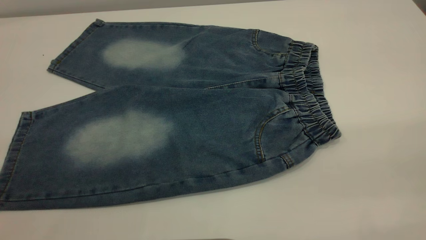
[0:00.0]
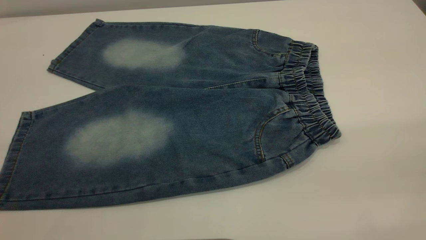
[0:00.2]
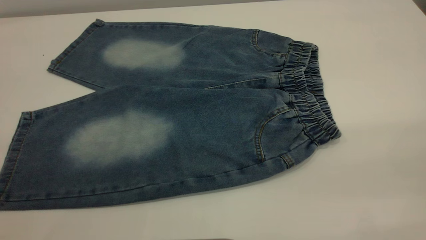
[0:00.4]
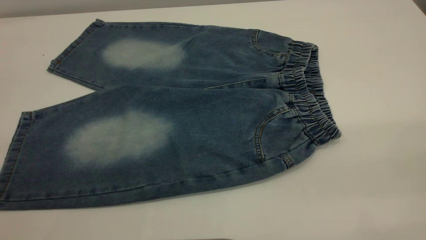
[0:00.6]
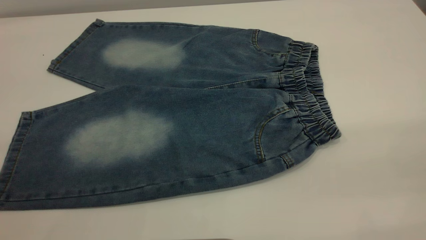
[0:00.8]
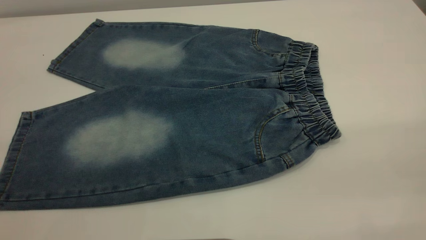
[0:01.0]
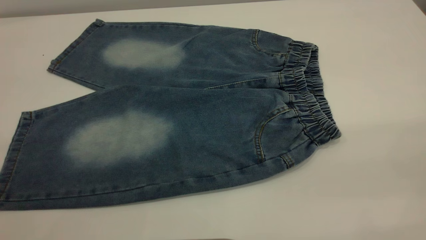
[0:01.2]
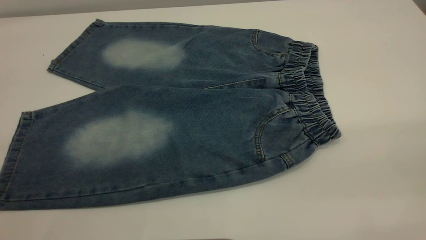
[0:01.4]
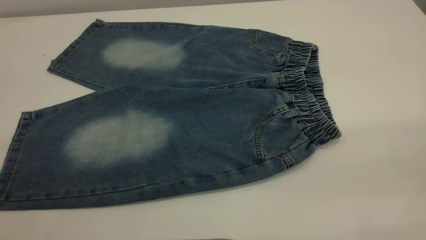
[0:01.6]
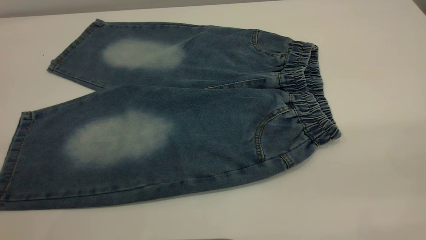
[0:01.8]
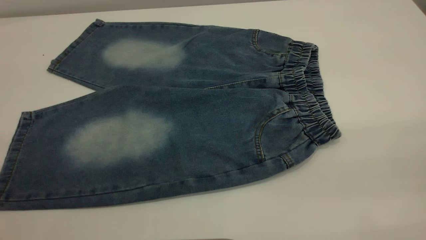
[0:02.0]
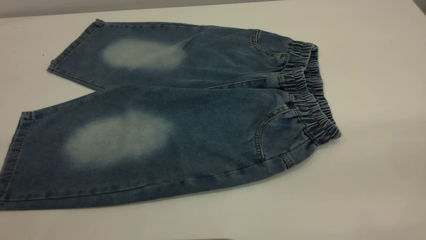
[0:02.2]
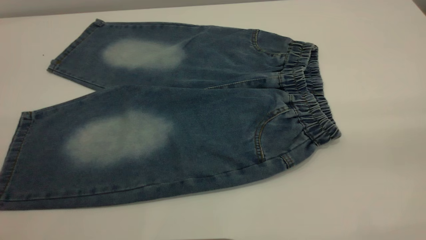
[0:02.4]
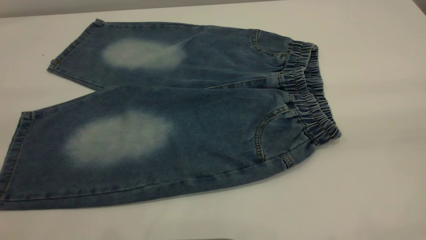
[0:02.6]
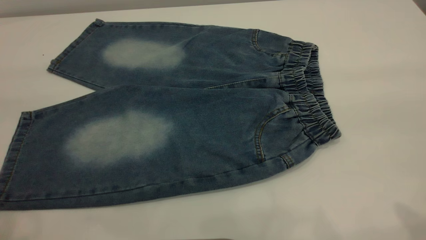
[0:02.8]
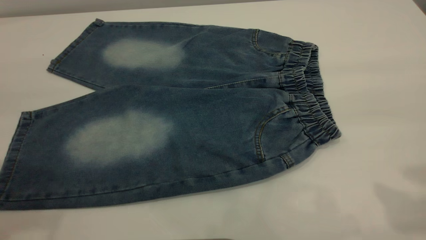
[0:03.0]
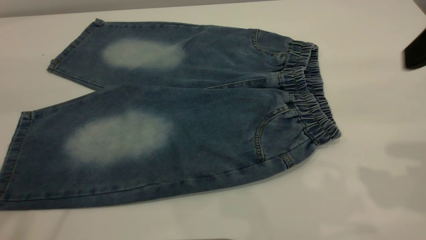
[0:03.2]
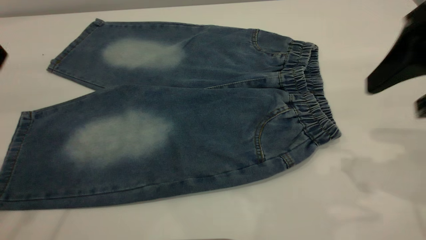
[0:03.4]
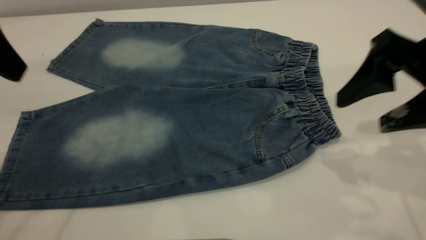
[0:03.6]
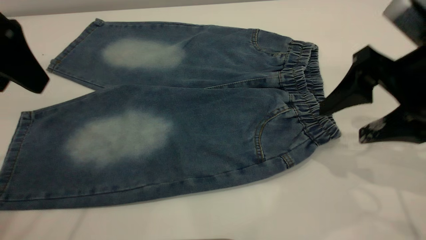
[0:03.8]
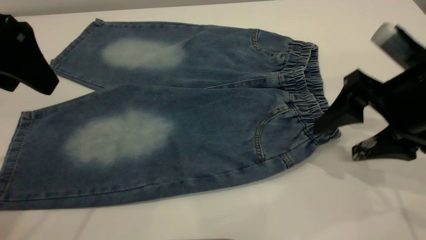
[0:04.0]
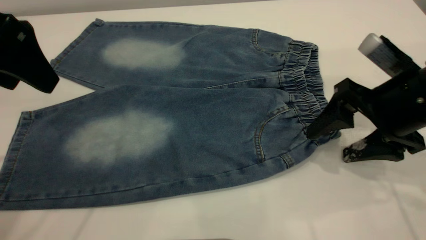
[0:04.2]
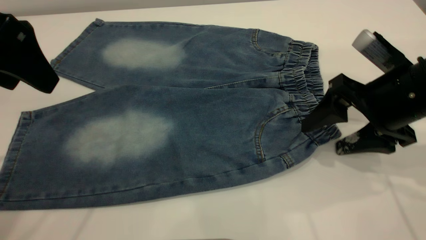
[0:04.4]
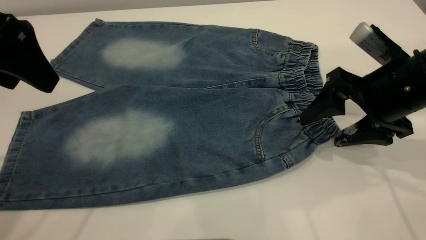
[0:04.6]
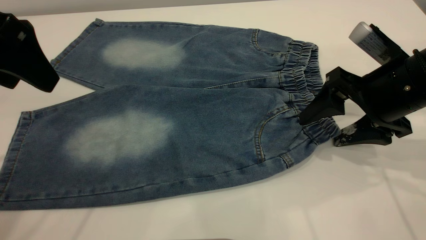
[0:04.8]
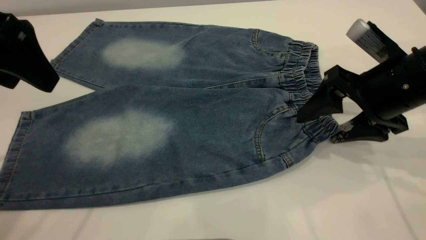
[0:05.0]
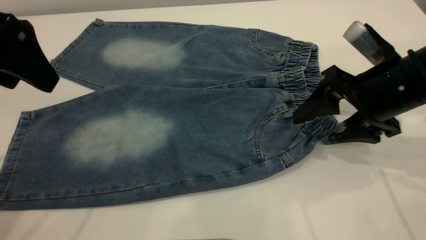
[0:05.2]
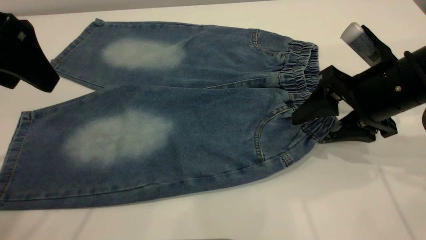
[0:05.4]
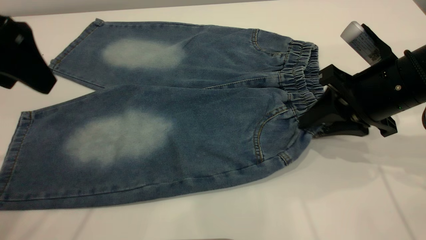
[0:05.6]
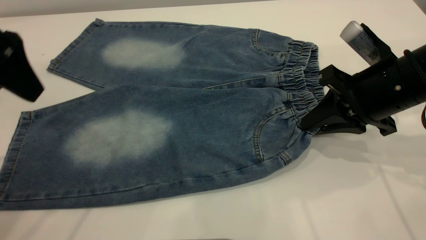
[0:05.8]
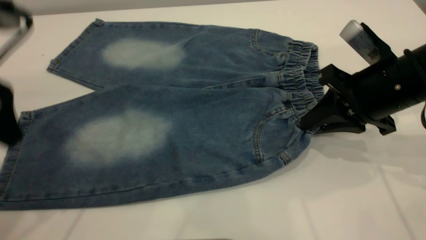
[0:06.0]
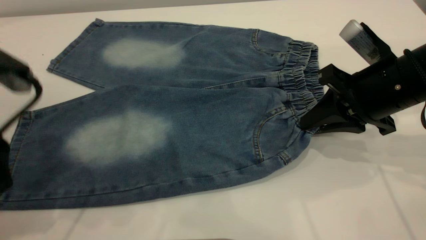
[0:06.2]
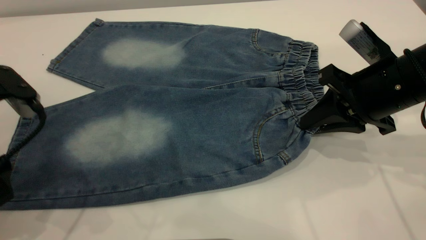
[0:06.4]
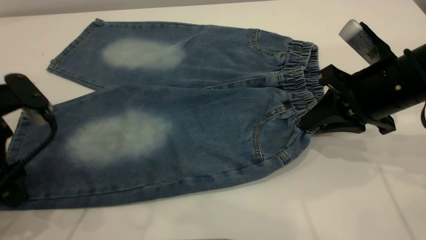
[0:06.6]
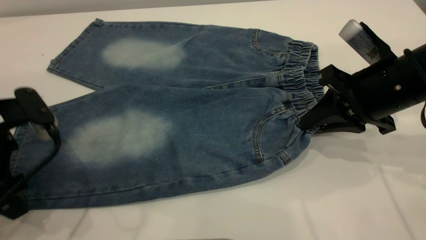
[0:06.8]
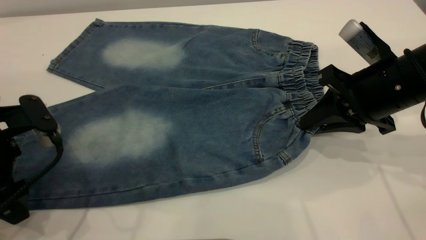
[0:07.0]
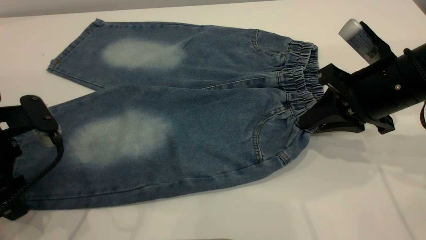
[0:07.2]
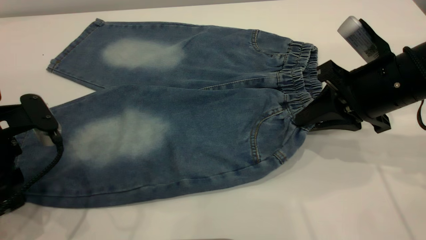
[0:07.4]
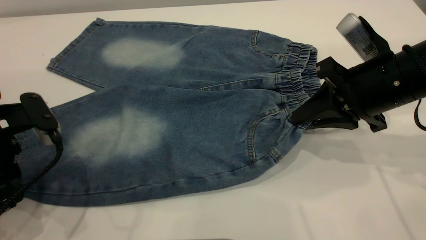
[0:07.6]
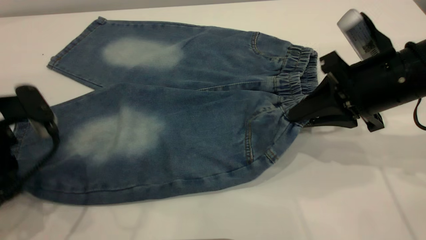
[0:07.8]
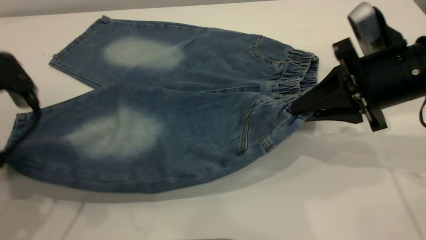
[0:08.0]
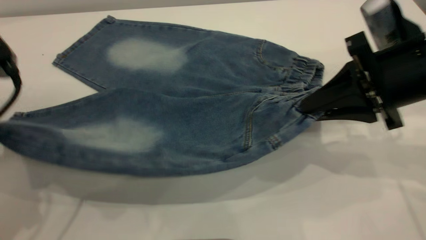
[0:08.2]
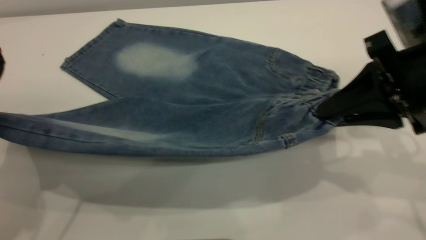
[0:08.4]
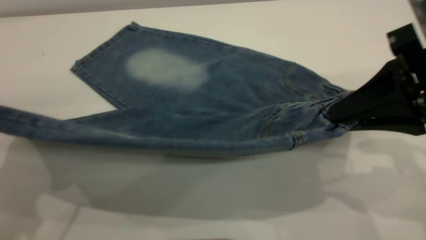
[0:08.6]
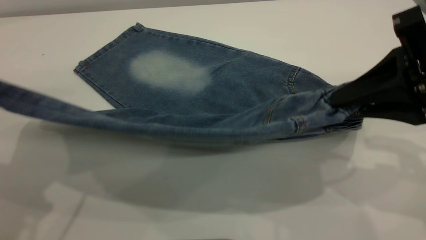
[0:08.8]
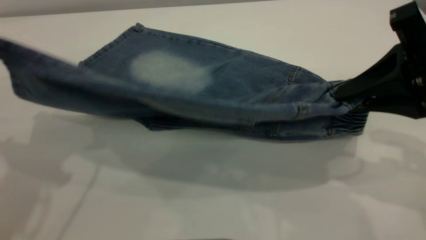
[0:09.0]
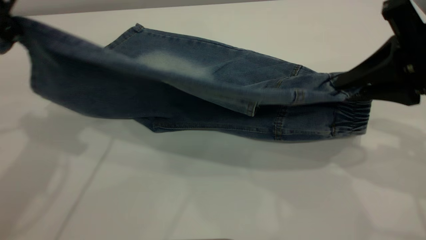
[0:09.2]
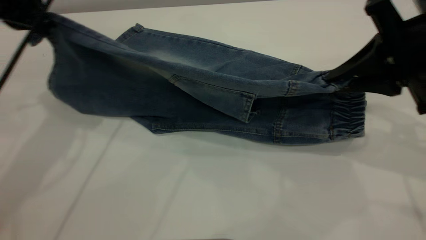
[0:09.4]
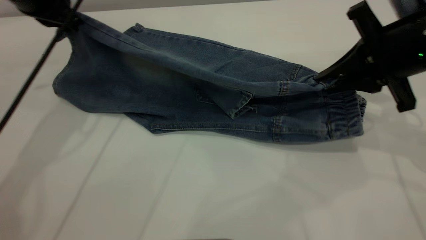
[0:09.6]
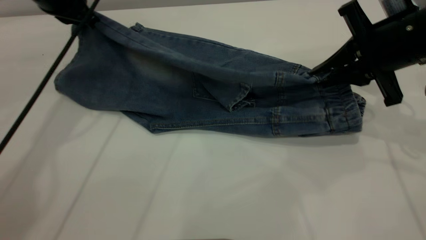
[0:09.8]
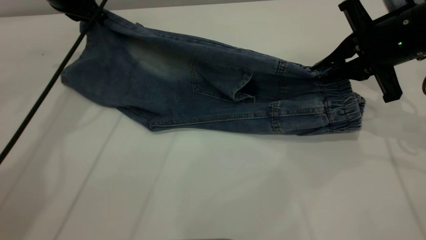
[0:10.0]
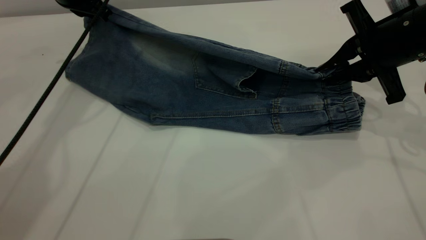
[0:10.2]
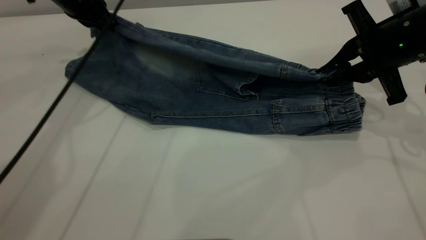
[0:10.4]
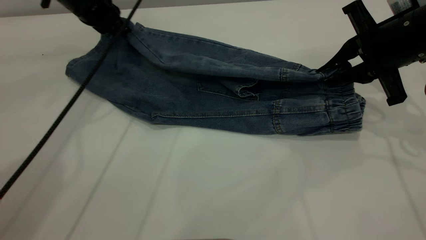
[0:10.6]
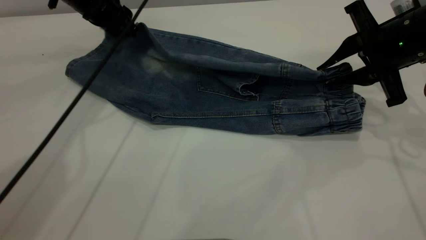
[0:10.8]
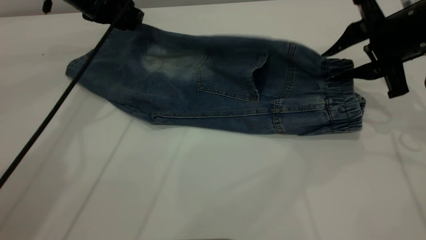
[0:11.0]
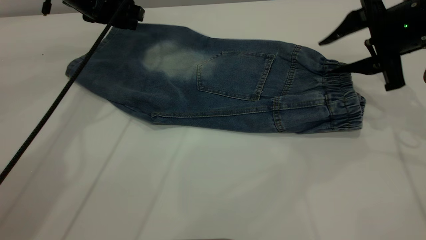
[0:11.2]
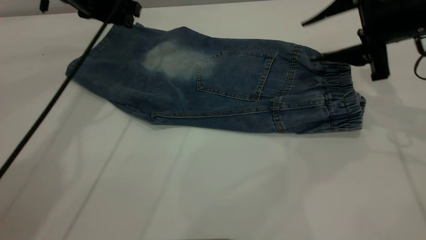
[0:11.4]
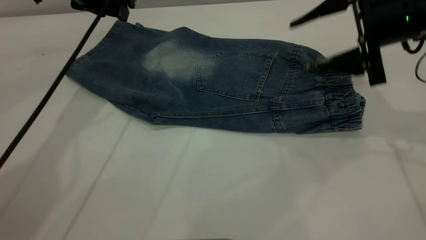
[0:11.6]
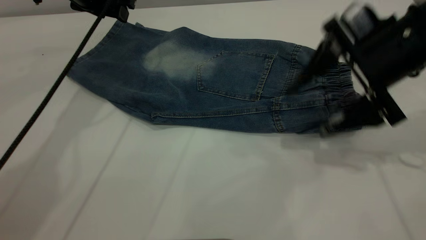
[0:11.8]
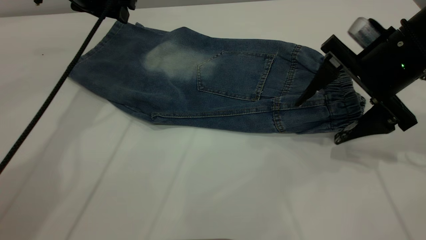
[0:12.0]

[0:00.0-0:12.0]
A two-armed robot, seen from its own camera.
Step, 0:00.0 to 0:11.4: Fold the bottom of the pants upward.
0:00.0 to 0:01.6: Both grippers stay about where they are.
0:03.0 to 0:04.4: The right gripper heads downward and forward, covering roughly 20 cm. The left gripper heads downward and forward, covering about 10 cm.
0:04.4 to 0:06.0: The left gripper moves about 5 cm; the right gripper closes its fingers.
0:06.0 to 0:07.6: The left gripper travels downward by approximately 10 cm, and closes.
0:07.6 to 0:09.0: The right gripper shifts approximately 10 cm upward and backward; the left gripper travels upward by about 15 cm.
0:09.0 to 0:10.4: The right gripper moves forward and downward, roughly 10 cm. The left gripper goes some 25 cm forward and downward.
0:10.4 to 0:12.0: The right gripper opens up. The left gripper opens up.

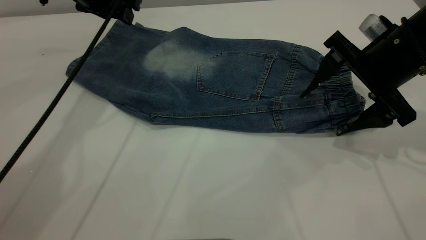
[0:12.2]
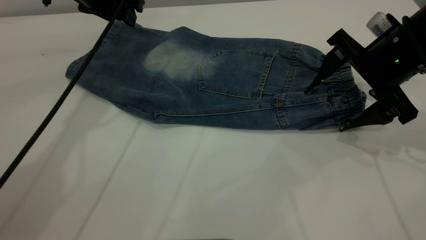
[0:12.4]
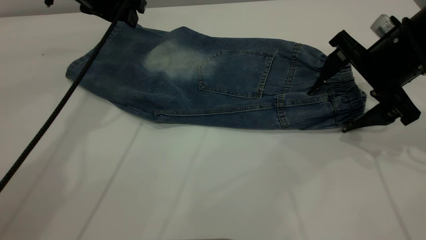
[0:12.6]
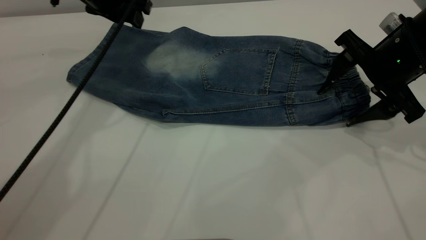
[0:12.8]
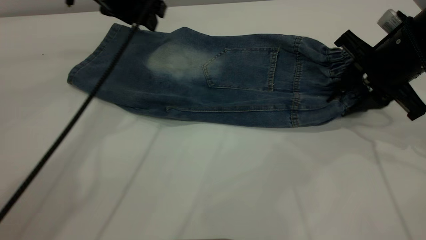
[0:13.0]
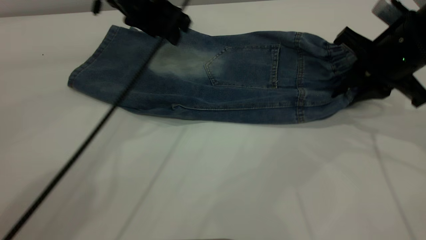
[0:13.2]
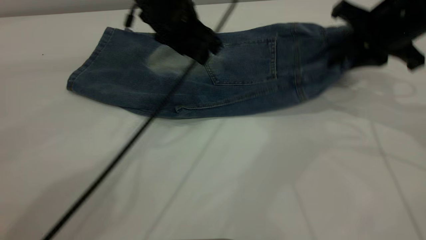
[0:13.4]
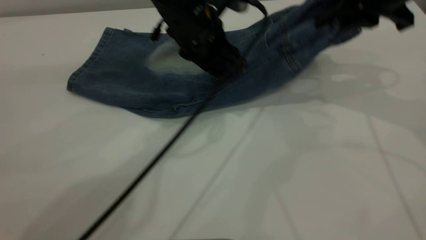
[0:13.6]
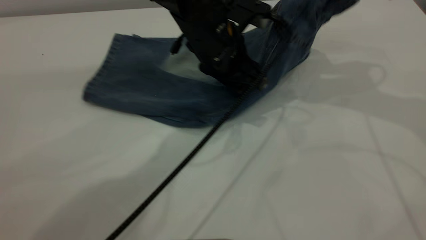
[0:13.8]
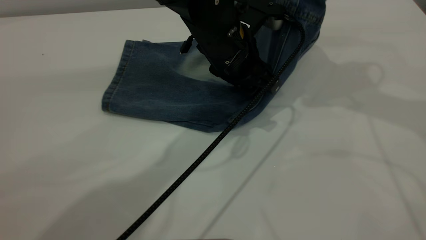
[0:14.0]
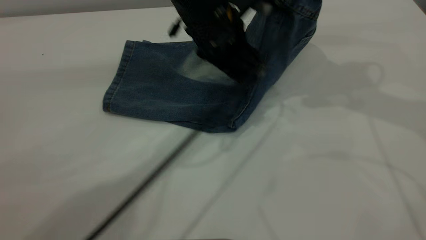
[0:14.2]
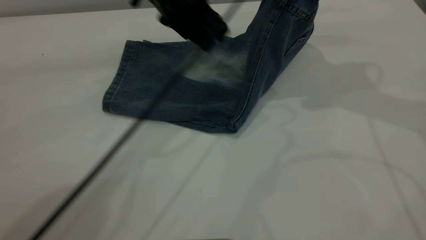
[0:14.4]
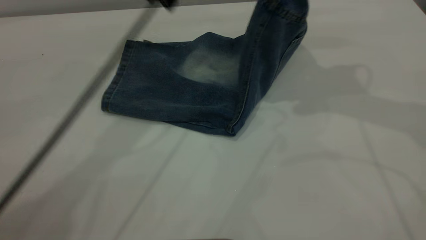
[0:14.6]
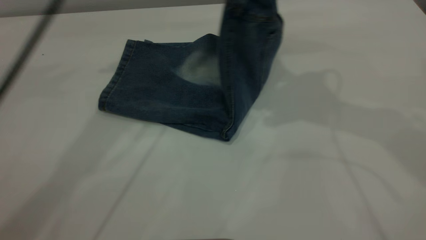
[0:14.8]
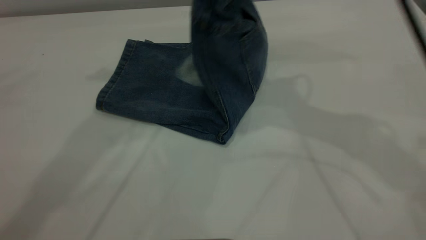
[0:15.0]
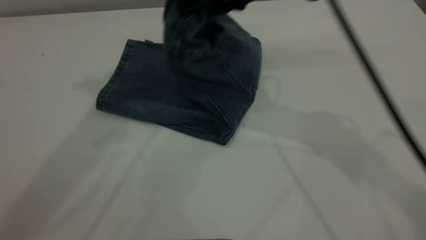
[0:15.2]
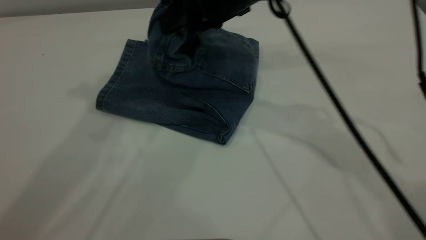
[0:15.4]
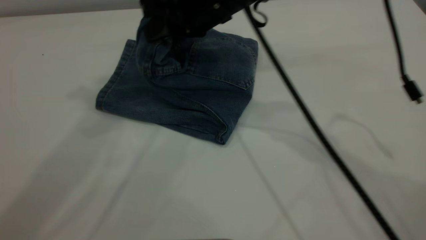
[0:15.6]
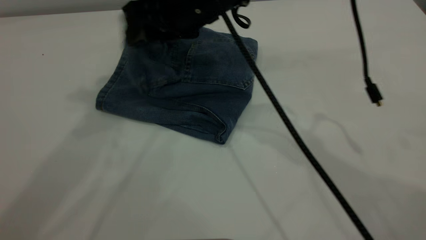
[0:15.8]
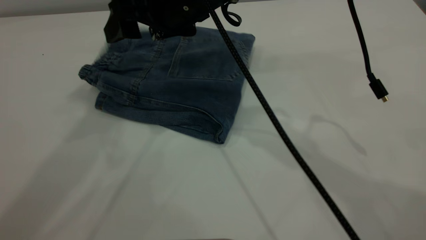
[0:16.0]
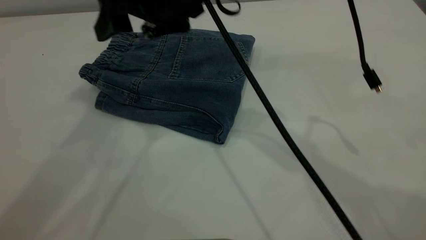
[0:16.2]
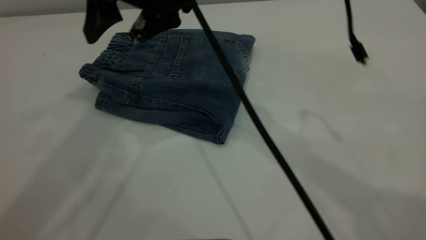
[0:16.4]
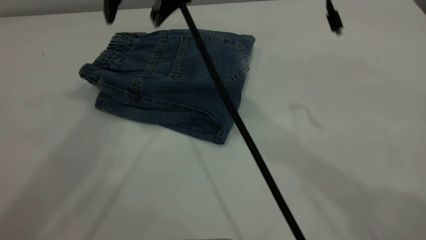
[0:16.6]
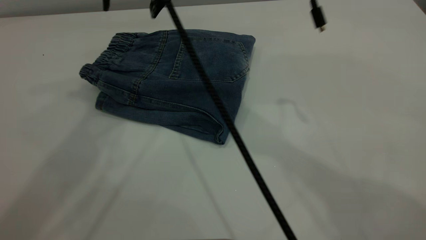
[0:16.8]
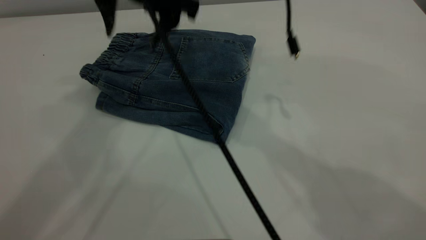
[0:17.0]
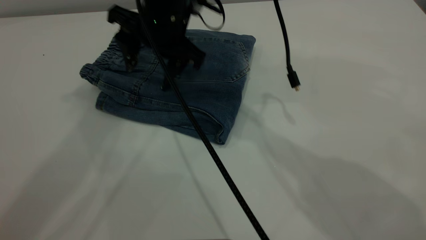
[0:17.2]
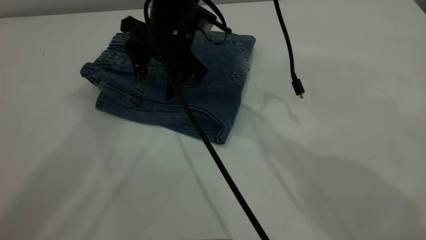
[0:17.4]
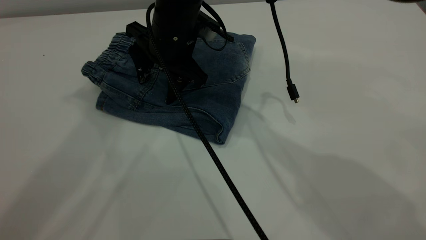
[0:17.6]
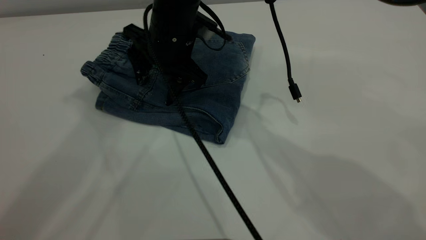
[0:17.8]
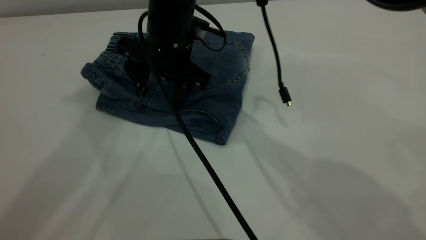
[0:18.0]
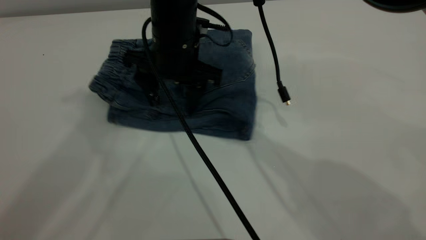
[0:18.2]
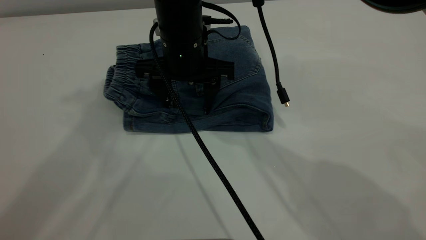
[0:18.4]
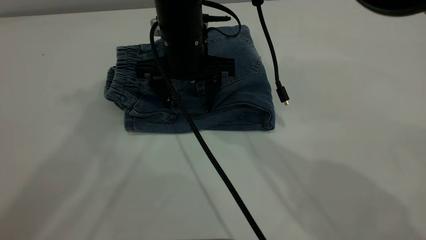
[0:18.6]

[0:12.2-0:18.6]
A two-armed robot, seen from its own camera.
Step, 0:12.2 to 0:16.6: Fold your pants from right to left.
0:12.2 to 0:13.8: The right gripper is displaced upward by approximately 10 cm, and closes. The left gripper travels to the right and backward by approximately 25 cm.
0:13.8 to 0:15.4: The left gripper is displaced upward and to the left by about 40 cm. The right gripper travels to the left by approximately 20 cm.
0:15.4 to 0:17.0: The right gripper moves to the left, about 10 cm, and opens up.
0:17.0 to 0:18.6: The right gripper goes about 10 cm downward.
